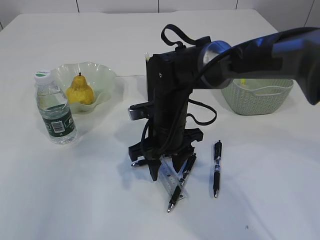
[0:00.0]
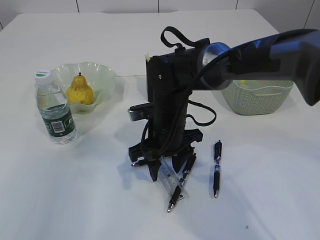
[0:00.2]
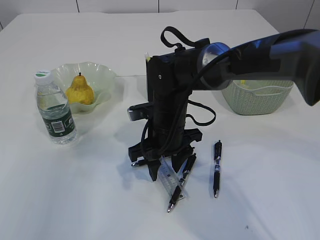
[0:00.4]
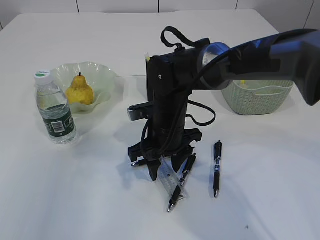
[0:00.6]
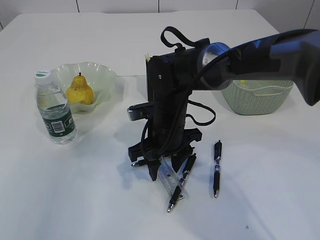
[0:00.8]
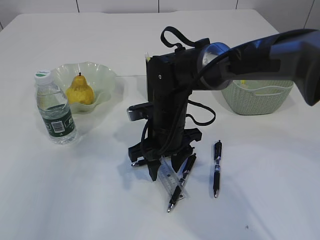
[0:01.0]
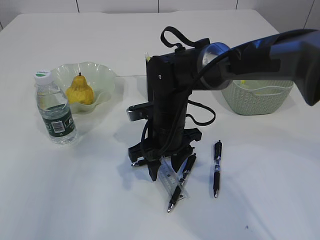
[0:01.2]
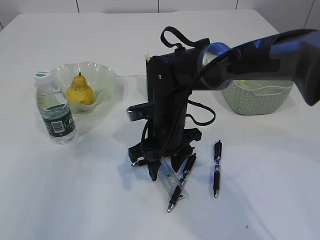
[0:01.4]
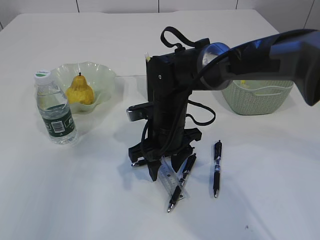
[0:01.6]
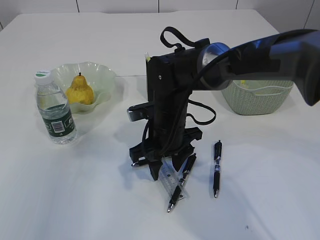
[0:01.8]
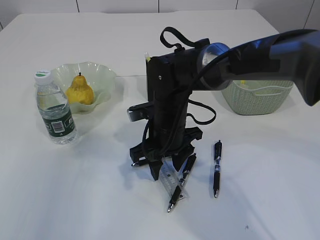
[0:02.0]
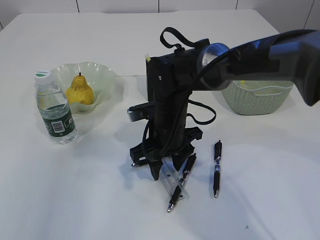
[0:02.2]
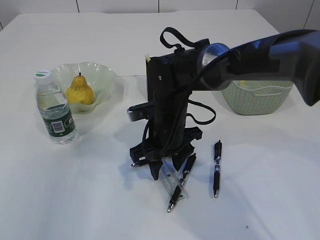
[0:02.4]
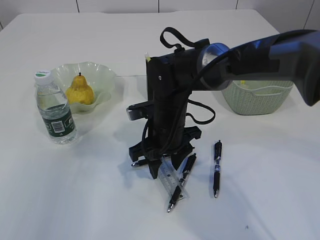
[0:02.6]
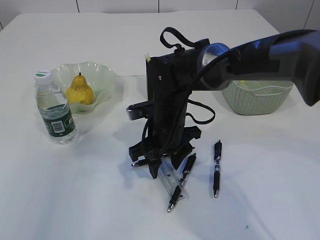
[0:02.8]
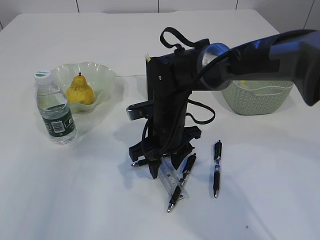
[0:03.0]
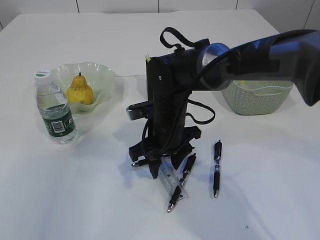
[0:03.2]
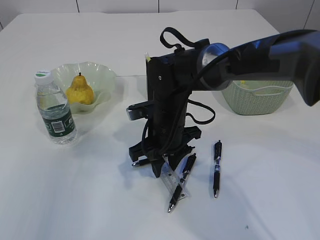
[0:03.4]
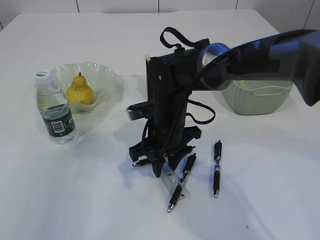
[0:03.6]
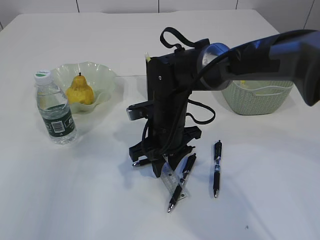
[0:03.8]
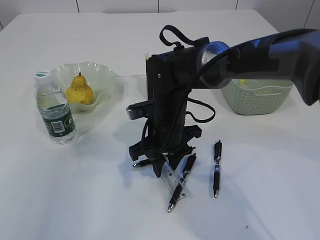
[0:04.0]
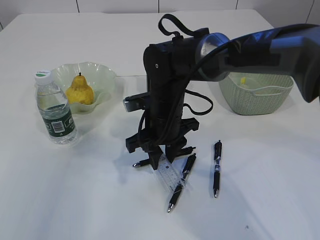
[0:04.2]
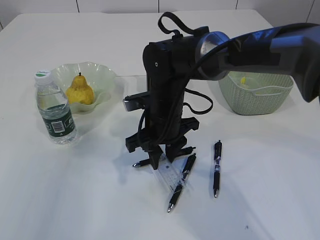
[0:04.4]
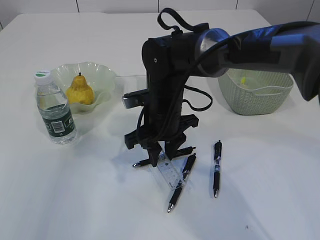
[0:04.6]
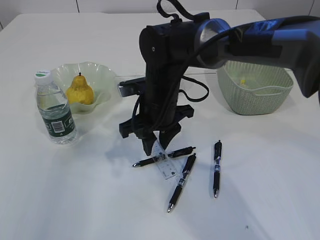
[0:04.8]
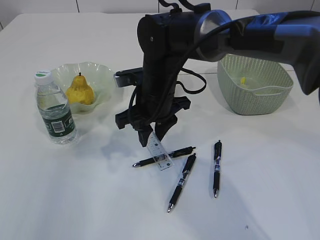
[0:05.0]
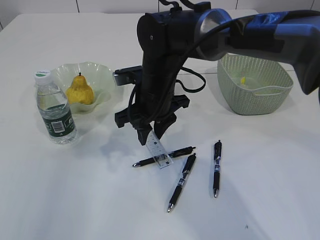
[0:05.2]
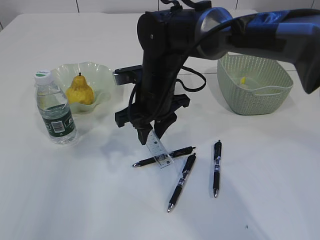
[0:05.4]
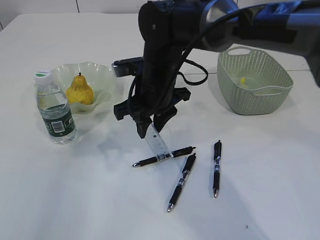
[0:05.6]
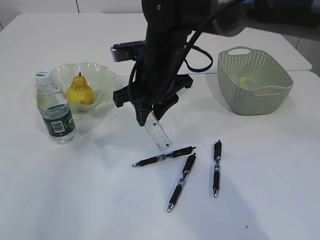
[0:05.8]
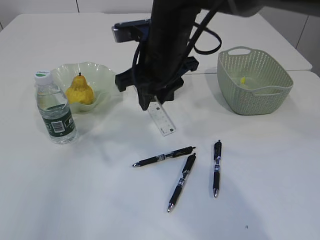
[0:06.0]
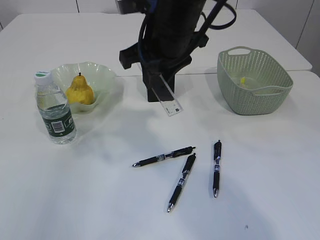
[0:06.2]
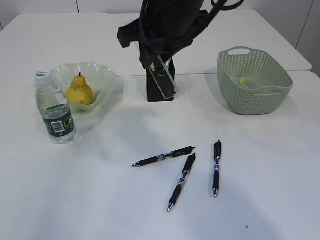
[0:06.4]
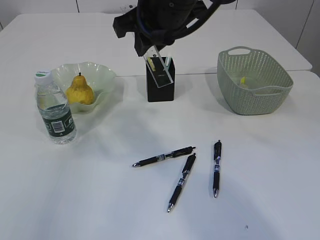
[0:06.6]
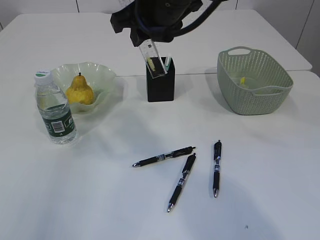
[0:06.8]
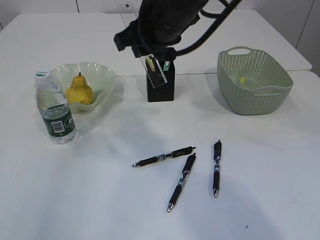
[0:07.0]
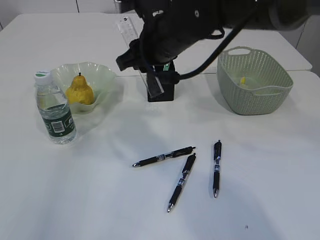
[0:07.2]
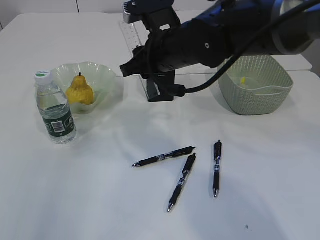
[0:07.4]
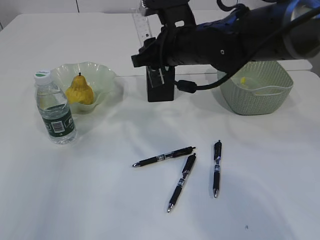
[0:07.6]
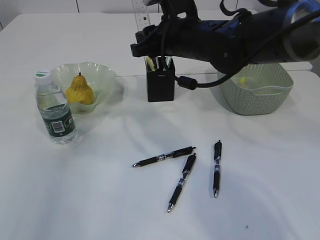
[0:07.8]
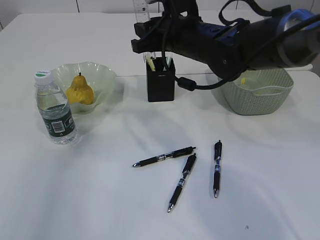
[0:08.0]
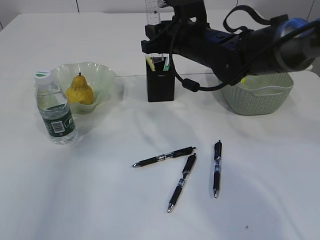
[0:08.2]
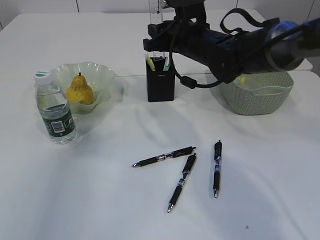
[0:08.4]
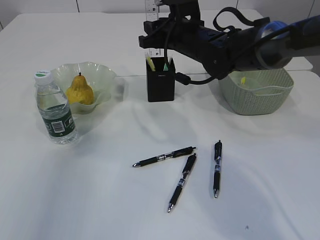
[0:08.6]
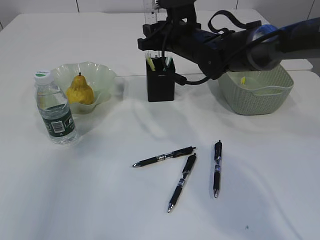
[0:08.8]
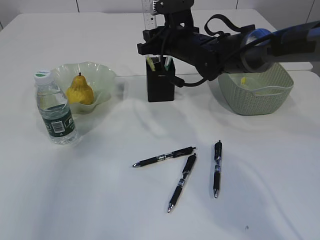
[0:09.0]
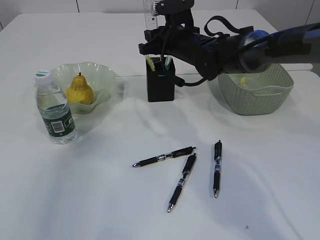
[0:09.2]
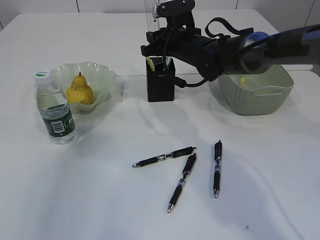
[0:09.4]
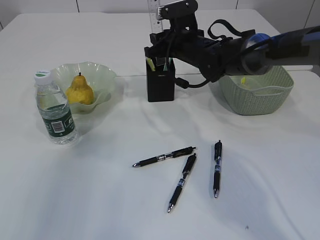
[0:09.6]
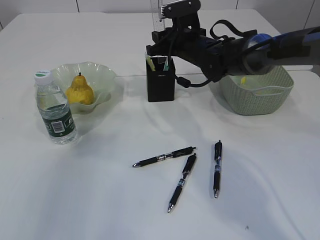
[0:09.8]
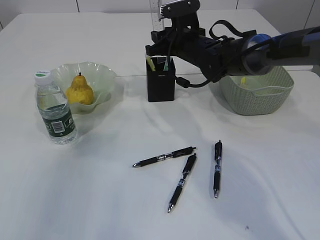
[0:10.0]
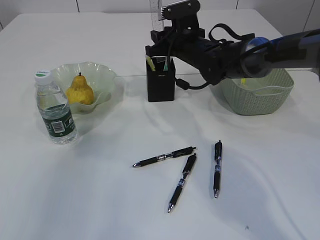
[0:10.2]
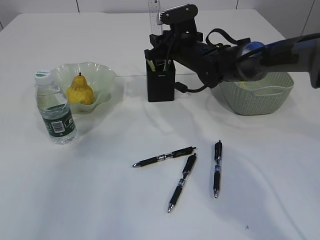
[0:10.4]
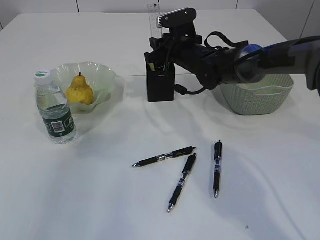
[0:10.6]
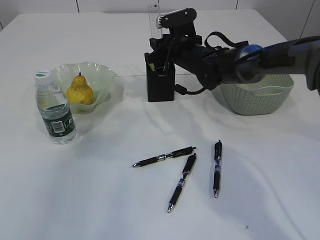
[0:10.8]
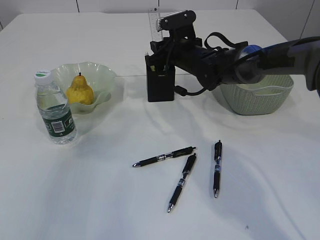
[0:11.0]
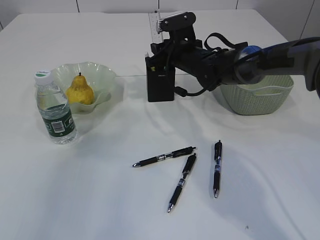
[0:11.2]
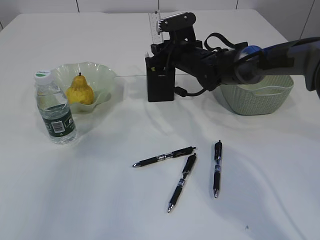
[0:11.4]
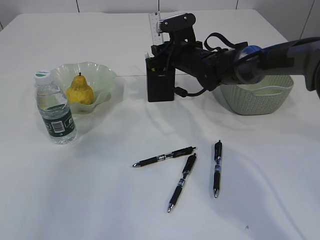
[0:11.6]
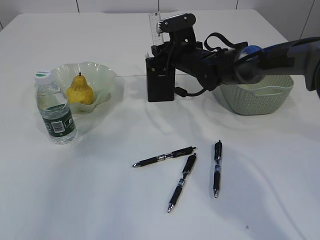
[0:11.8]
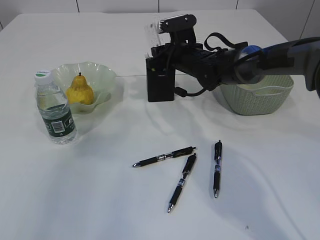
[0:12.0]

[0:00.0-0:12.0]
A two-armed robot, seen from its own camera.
Step, 0:00.0 to 0:05.4: pick up the ruler.
0:00.0 to 0:03.0: Both grippers stay about where they are.
0:03.0 to 0:04.4: There are only small adjustments of the grippers.
0:04.4 to 0:06.0: The right gripper goes approximately 10 cm upward.
0:06.0 to 0:07.6: The right gripper goes upward and returns, approximately 10 cm each way.
0:07.6 to 0:09.0: The right gripper is displaced forward by roughly 10 cm.
0:09.0 to 0:12.0: There are only small adjustments of the grippers.

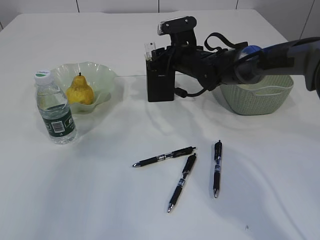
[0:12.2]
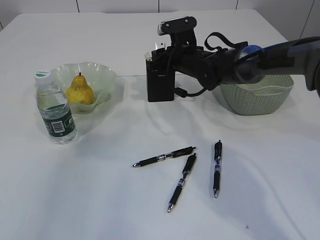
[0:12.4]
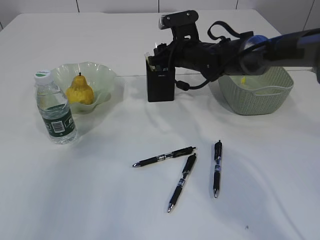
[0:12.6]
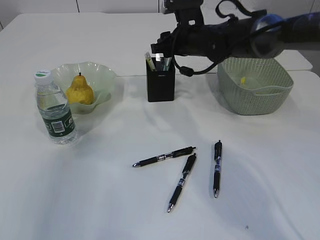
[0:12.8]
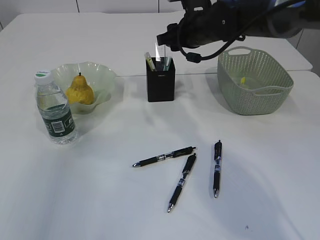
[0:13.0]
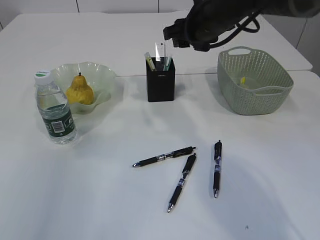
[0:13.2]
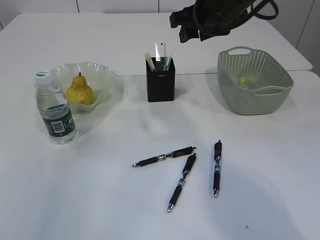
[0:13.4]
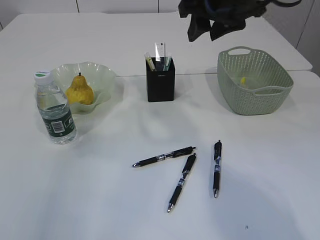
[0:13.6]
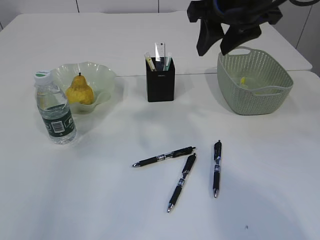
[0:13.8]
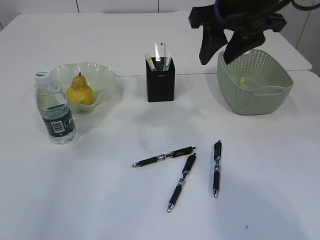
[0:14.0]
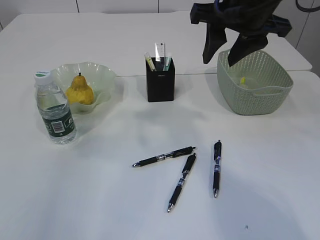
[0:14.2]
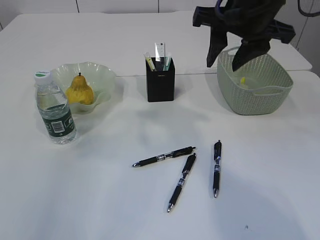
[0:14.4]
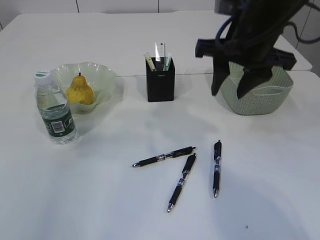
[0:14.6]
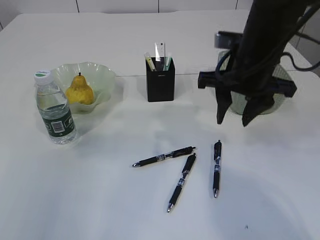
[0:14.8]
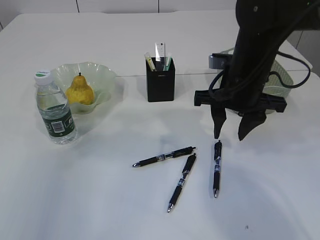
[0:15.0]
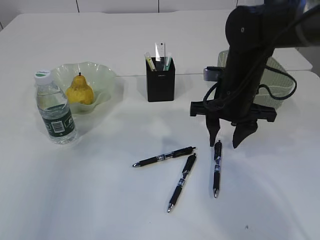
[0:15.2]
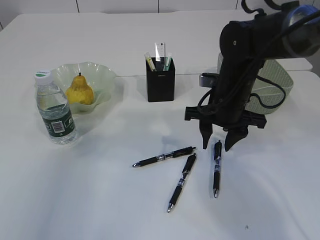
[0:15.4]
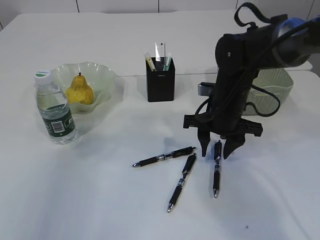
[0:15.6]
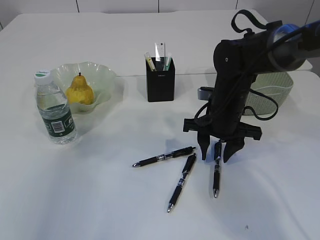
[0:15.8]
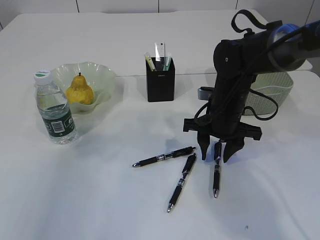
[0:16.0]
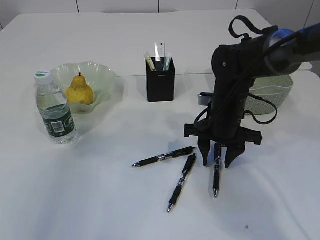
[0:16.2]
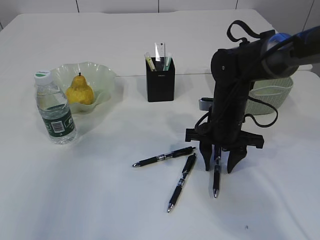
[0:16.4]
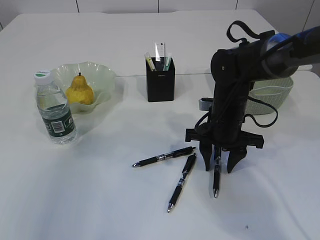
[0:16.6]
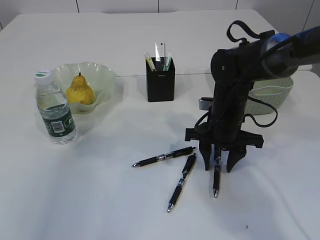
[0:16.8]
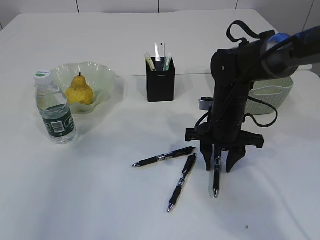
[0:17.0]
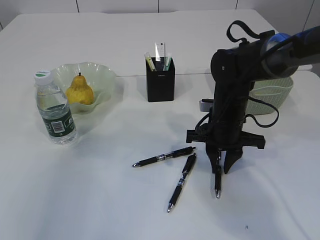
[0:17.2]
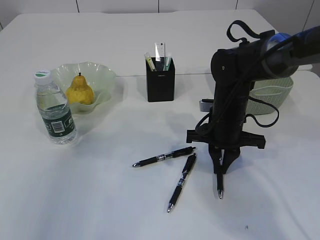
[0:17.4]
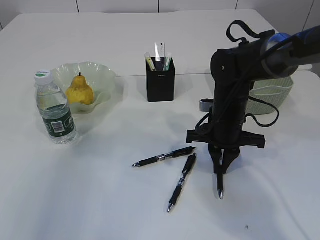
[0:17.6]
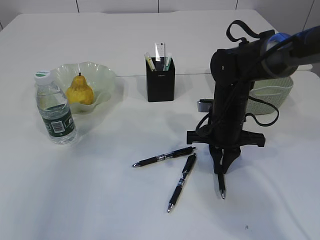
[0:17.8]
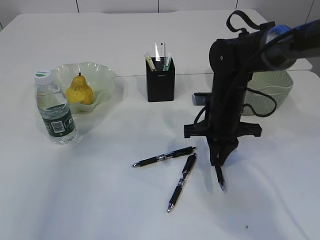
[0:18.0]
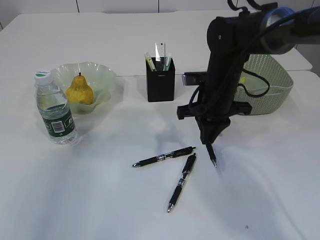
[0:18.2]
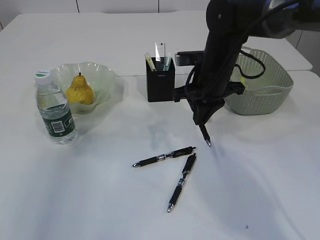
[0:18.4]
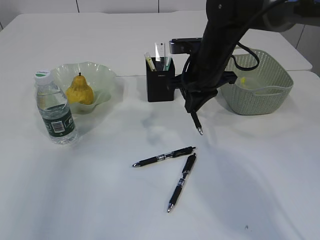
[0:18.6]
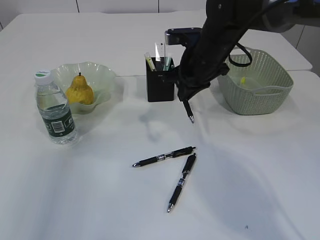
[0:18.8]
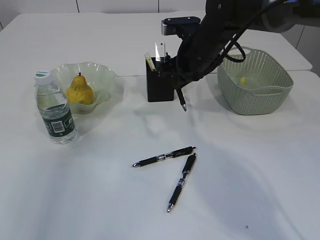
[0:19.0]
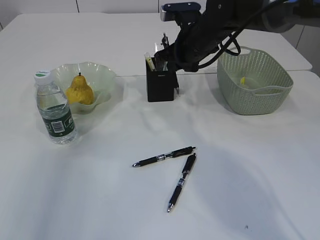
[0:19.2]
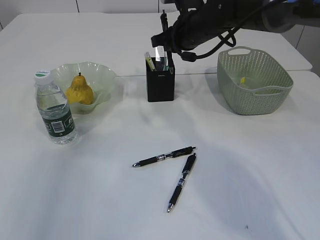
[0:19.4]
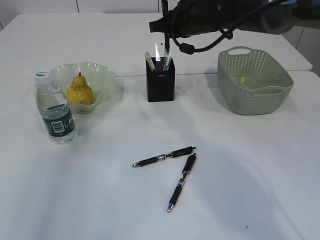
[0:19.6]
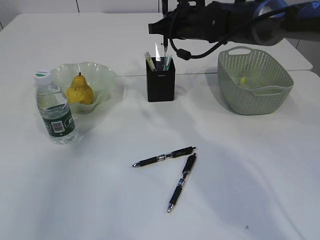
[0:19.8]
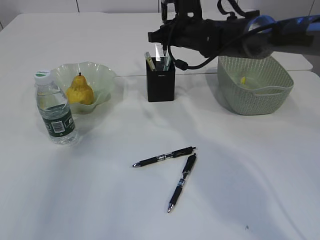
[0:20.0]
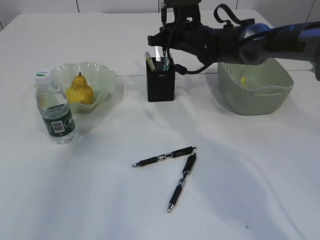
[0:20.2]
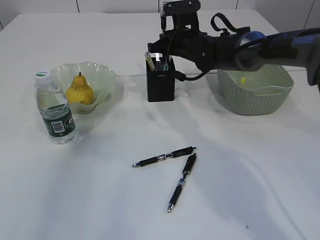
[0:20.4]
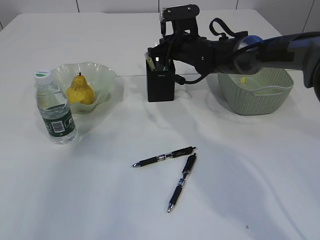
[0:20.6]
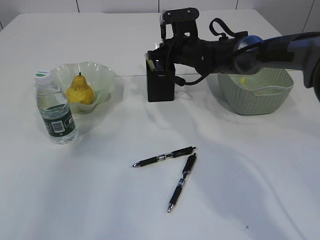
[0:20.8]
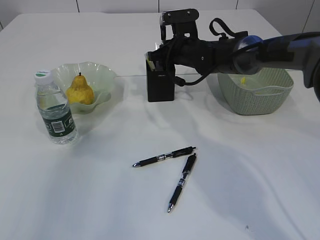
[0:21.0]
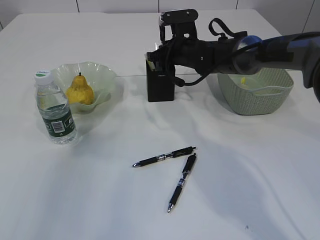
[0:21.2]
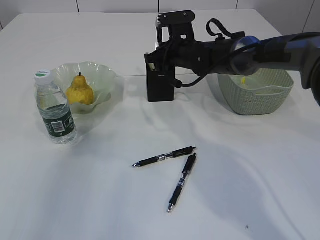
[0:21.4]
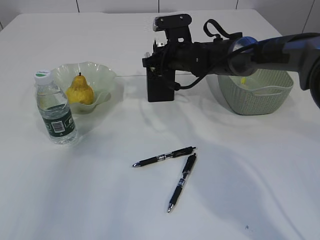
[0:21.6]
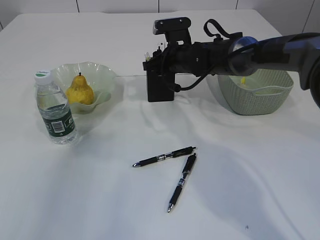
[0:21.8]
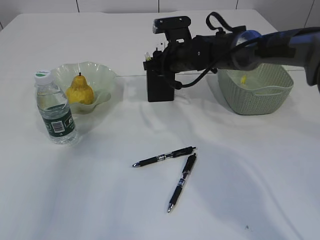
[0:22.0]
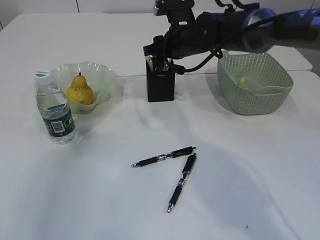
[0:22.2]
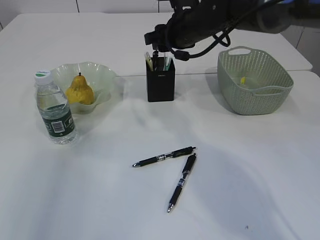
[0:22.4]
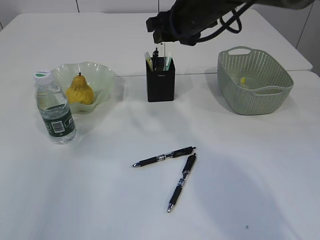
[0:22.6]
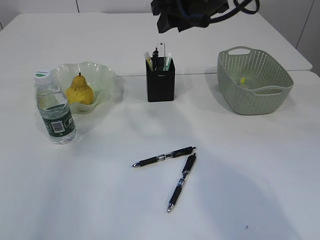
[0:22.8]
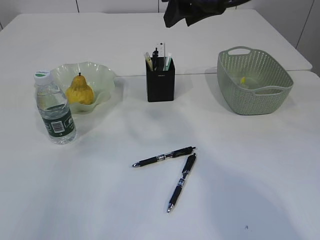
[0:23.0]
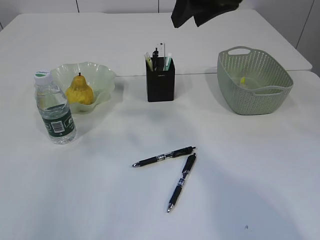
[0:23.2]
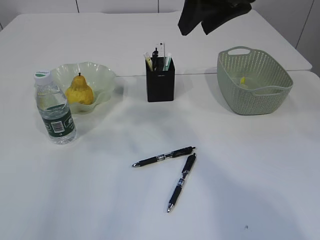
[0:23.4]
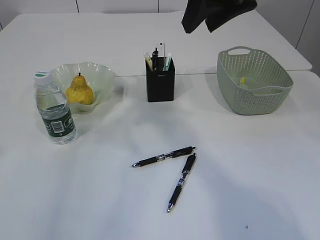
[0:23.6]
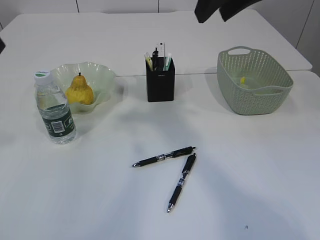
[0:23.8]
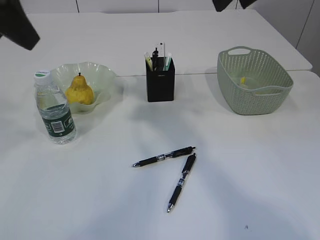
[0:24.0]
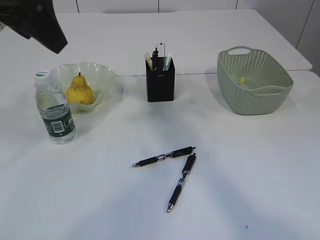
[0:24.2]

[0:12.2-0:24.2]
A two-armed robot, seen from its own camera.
Step, 0:13.4 to 0:18.2: Pick up the pen with right arm.
Step, 0:18.4 to 0:22.6: Place the pen into the pen holder.
0:12.2 to 0:13.8: The right gripper is displaced upward and backward by some 25 cm.
0:13.8 to 0:15.2: The right gripper heads downward, covering about 15 cm.
0:15.2 to 0:16.6: The right gripper shifts roughly 5 cm downward.
0:16.6 to 0:18.2: The right gripper moves about 5 cm, and closes up.
0:18.2 to 0:19.8: The right gripper heads forward and upward, covering approximately 15 cm.
0:19.8 to 0:21.2: The right gripper travels downward by roughly 5 cm.
0:21.2 to 0:22.6: The right gripper heads upward and backward, covering approximately 10 cm, and opens up.
0:22.6 to 0:24.2: The left gripper travels to the right and forward by some 15 cm. Meanwhile the right gripper moves upward, backward and to the right, some 25 cm.
